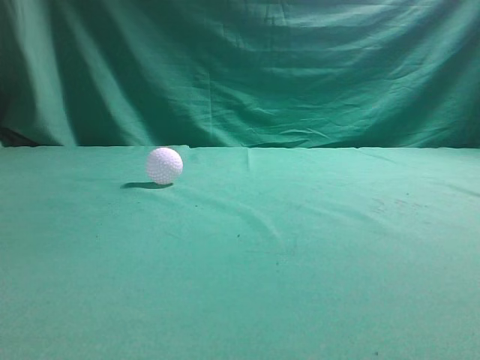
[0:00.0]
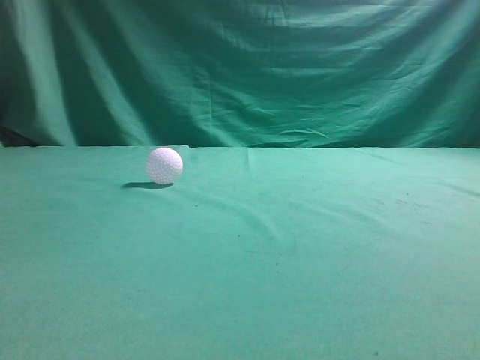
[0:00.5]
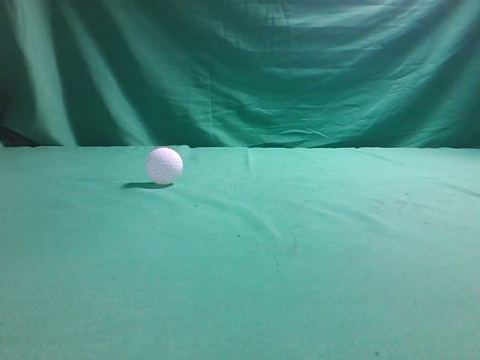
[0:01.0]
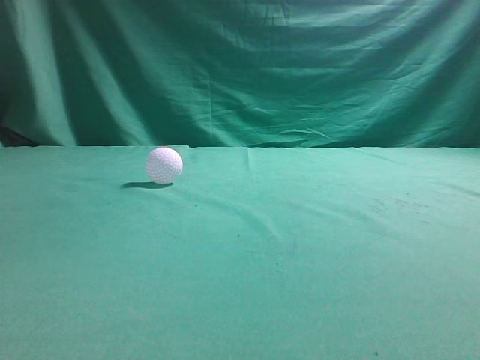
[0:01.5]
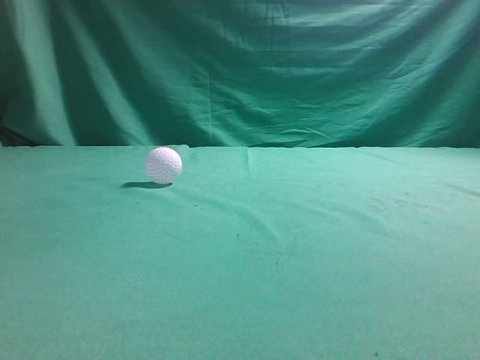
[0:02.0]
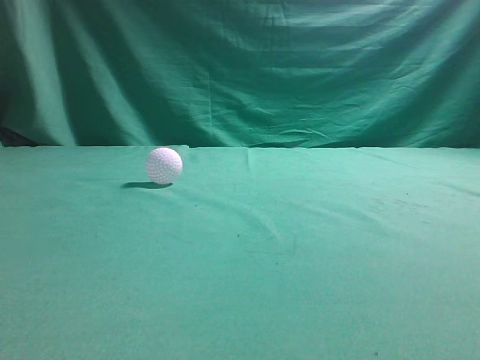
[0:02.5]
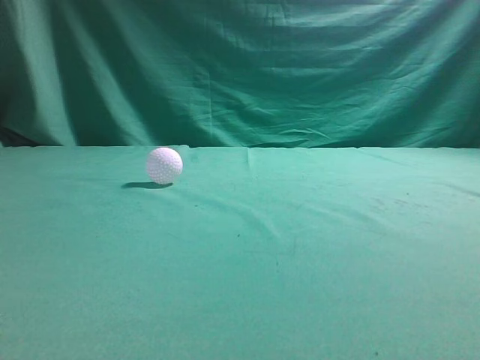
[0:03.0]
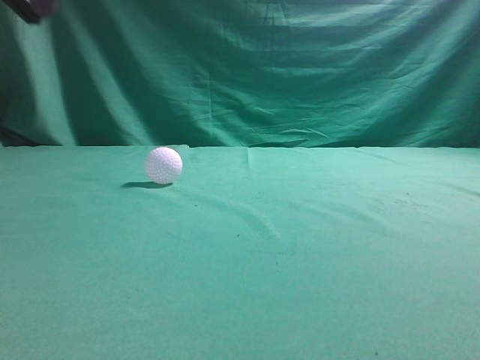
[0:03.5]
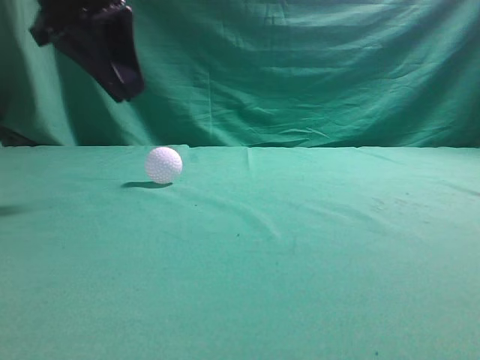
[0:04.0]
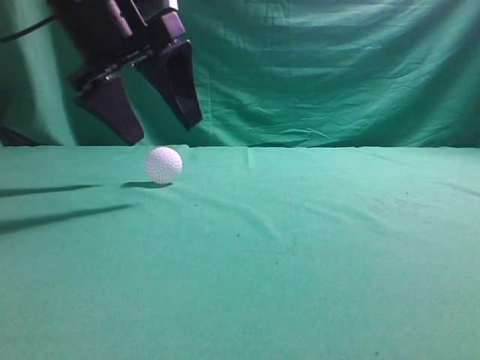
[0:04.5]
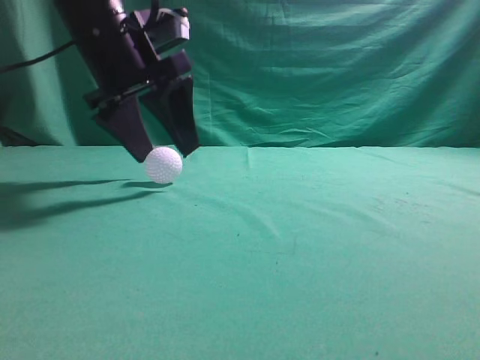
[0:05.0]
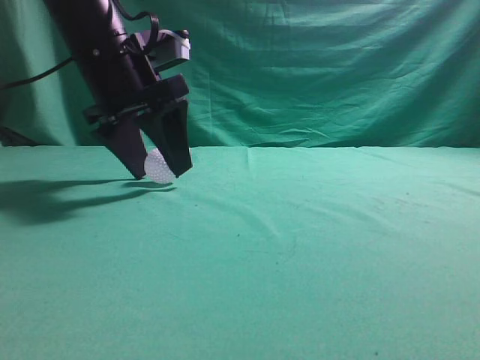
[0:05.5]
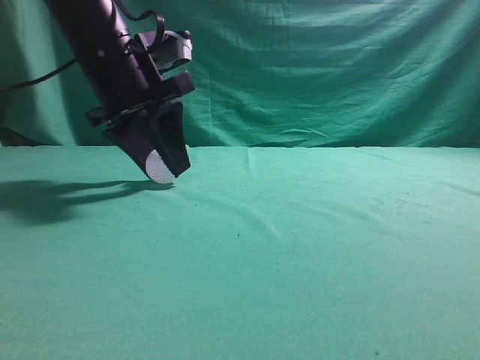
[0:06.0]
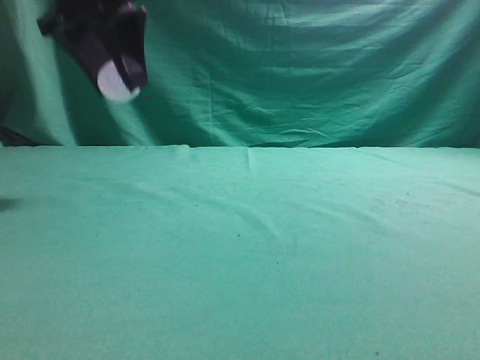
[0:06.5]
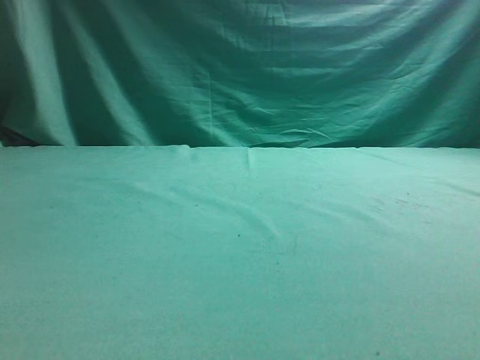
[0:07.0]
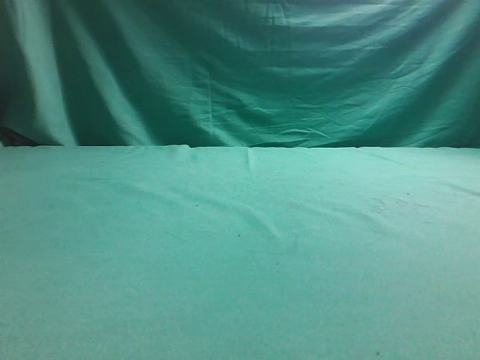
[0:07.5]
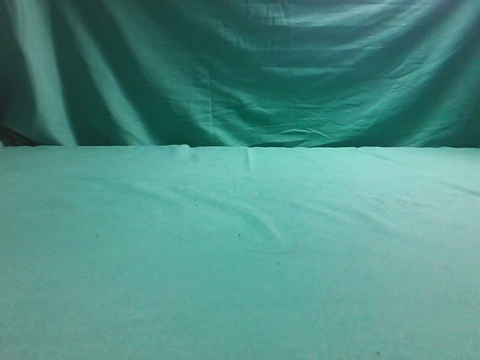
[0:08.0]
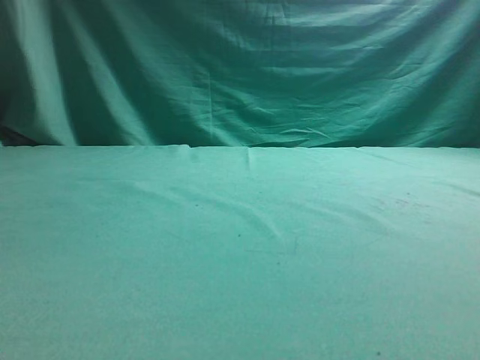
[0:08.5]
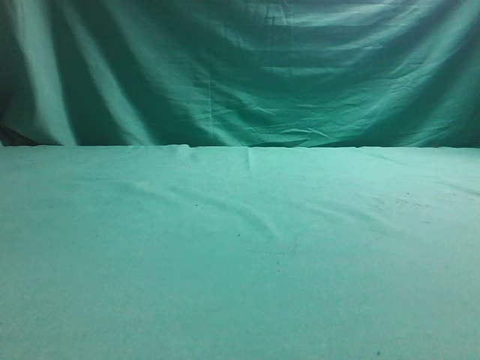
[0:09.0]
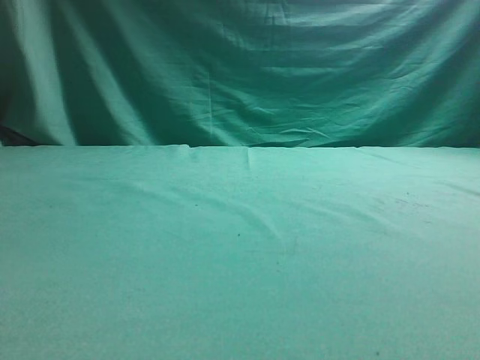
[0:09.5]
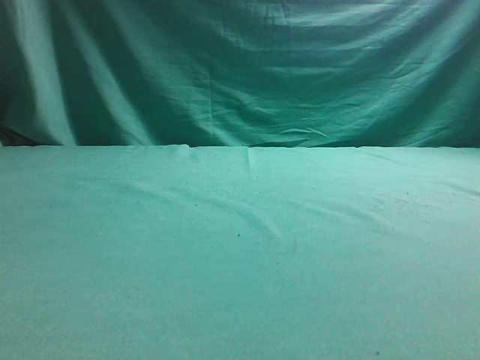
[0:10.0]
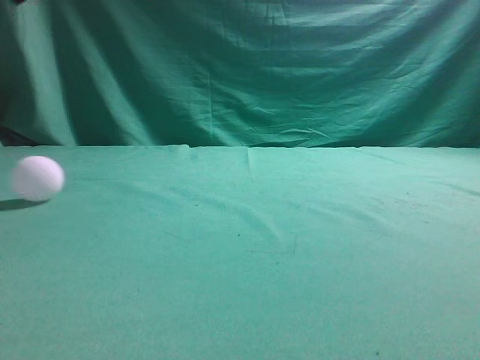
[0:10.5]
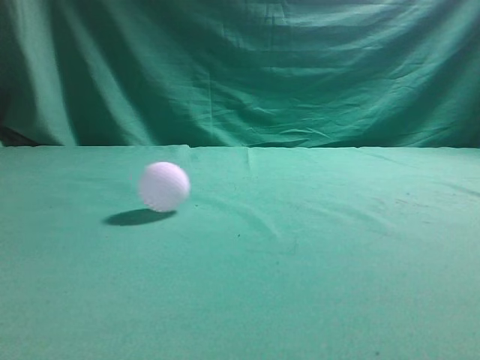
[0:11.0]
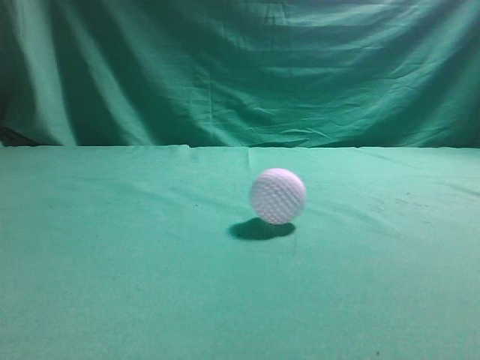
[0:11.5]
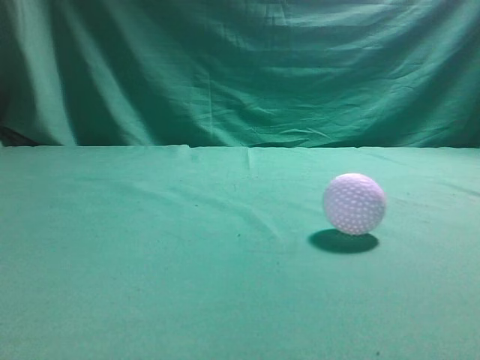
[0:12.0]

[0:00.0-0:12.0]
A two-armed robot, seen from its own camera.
Task of the whole recording: pick up the ball and place it on the plate, then pick up the ball from the plate and put it in the center of the table.
Step, 0:00.0 to 0:06.0: Grab the spherical object with your left arm.
Step, 0:06.5 to 0:10.0: Place the sphere on the white object.
0:02.0 to 0:04.0: The left gripper goes some 30 cm forward and to the right.
0:04.0 to 0:06.0: The left gripper heads downward and forward, covering some 10 cm, and opens.
0:06.0 to 0:08.0: The left gripper heads to the left, upward and backward, covering roughly 25 cm. Meanwhile the right gripper goes some 10 cm upward.

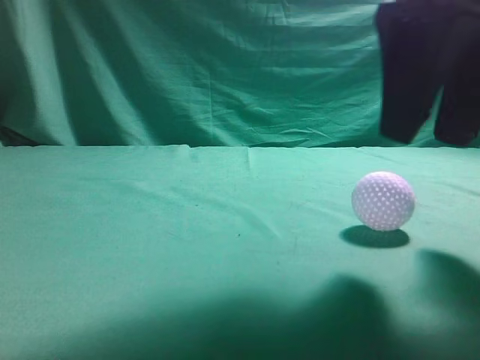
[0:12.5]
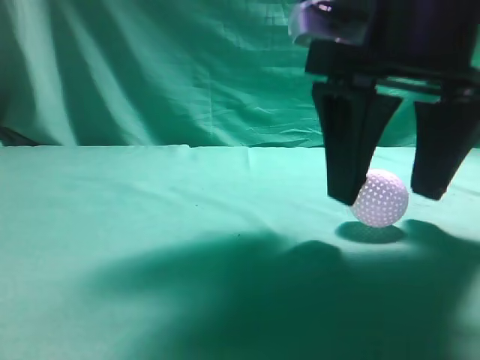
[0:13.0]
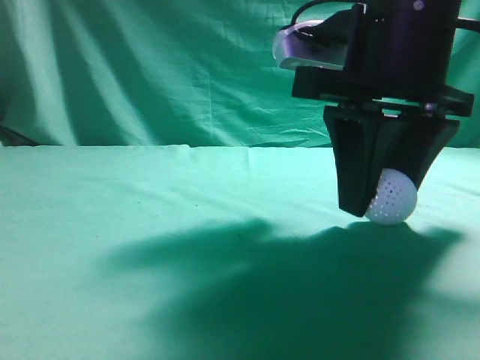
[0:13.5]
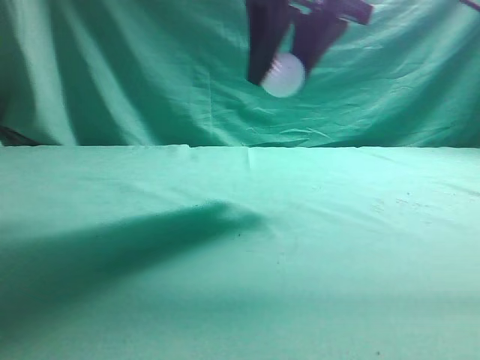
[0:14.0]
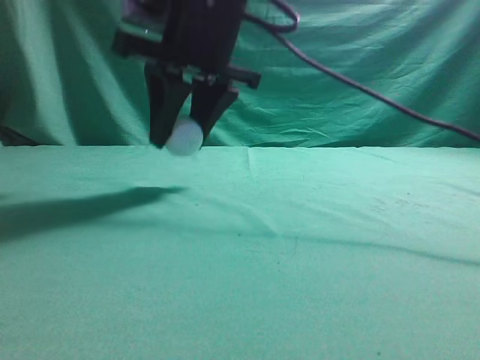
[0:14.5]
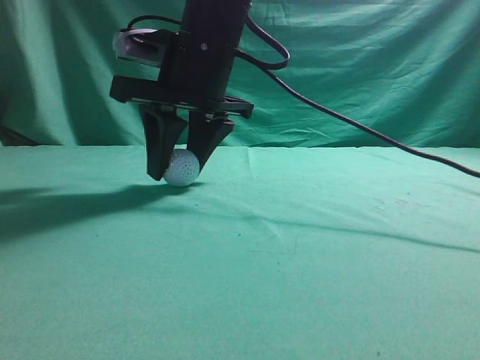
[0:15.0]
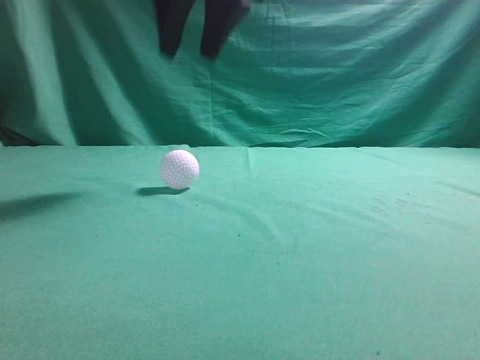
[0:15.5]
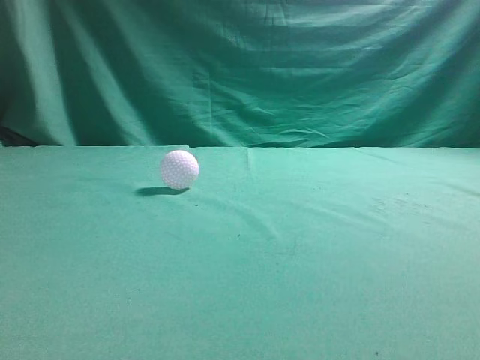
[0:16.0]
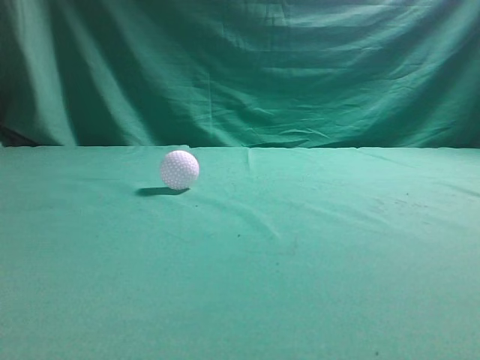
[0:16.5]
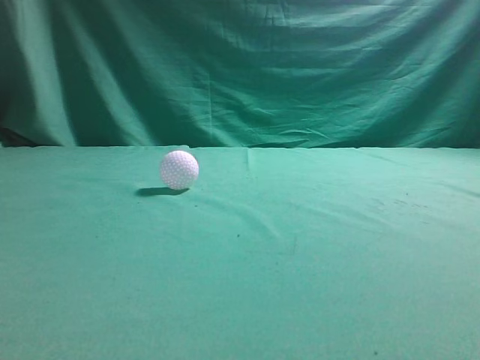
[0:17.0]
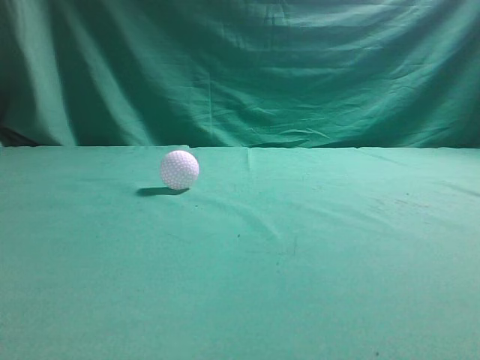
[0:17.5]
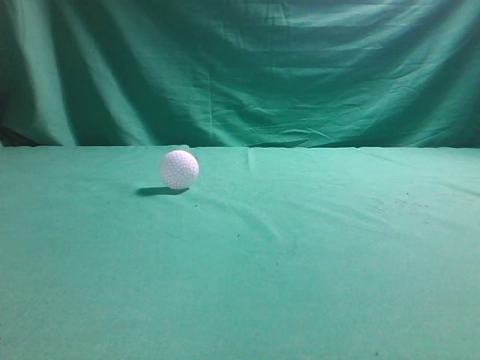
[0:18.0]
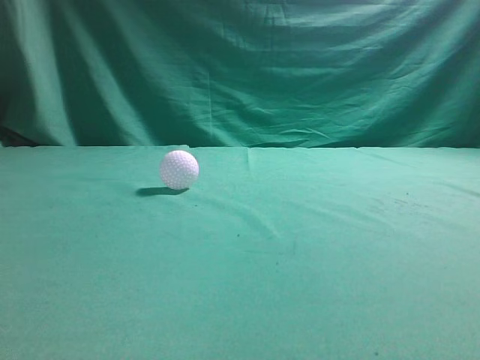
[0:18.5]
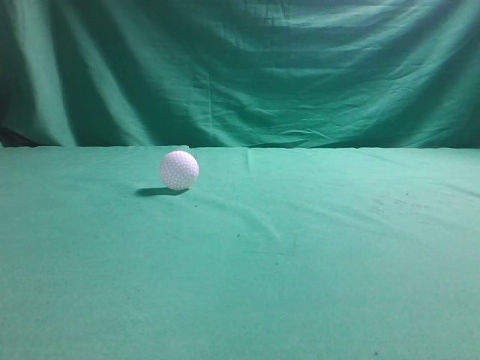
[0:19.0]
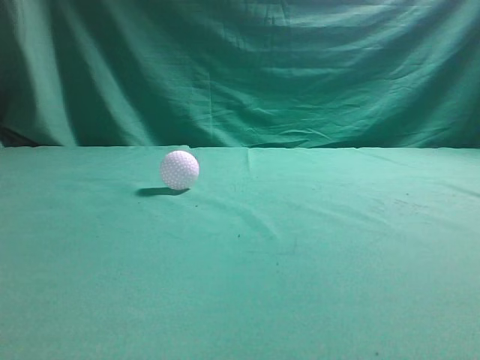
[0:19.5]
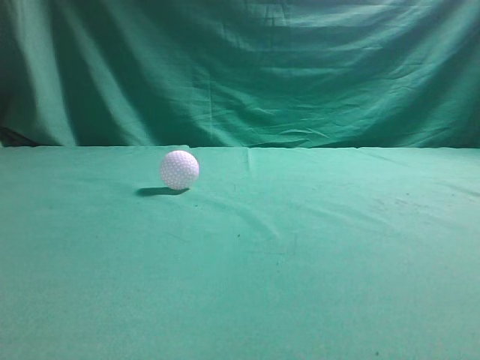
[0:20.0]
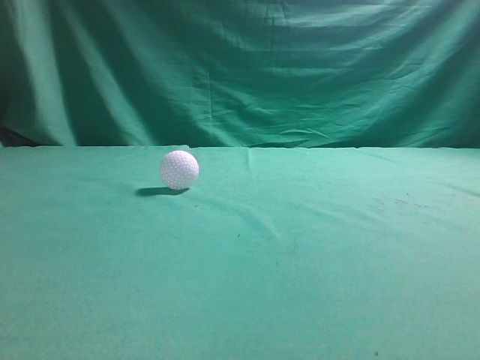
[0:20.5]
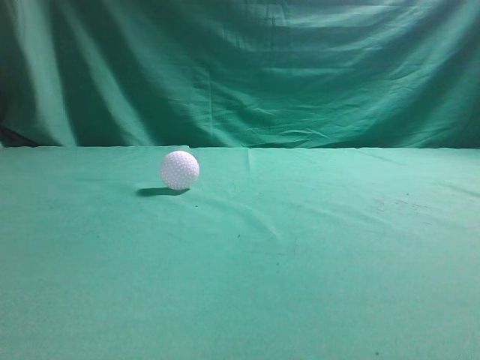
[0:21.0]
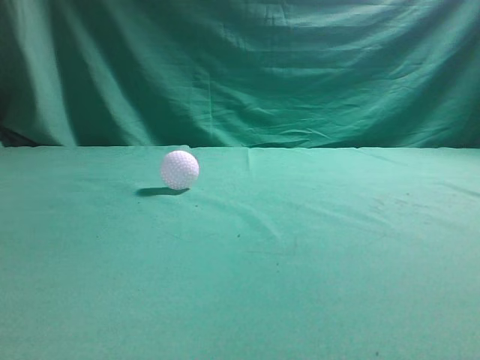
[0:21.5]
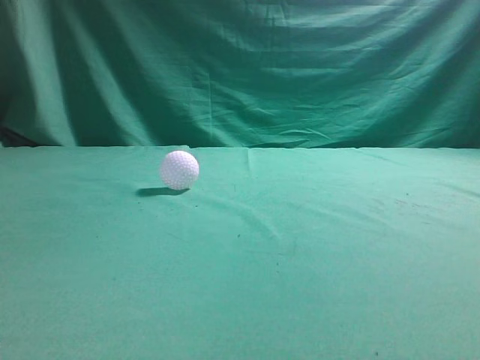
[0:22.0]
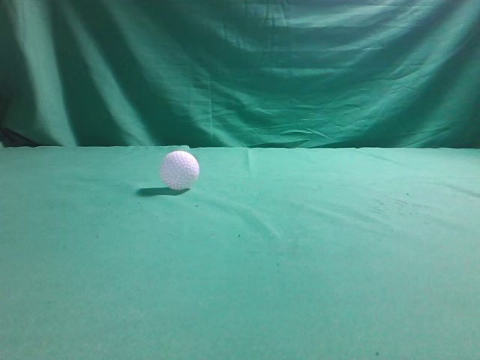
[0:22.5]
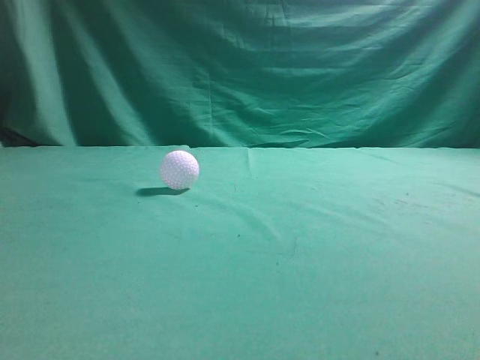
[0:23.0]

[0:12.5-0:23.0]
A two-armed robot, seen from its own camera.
Task of the whole recording: pick up the ball and place it on the plate, then pick up the ball from the plate and put it in the center of the table.
Step, 0:14.0 to 0:15.0: Put the picked-up object on the table.
0:12.5 to 0:14.5: The right gripper shifts about 20 cm to the left and forward.
0:14.5 to 0:16.5: The right gripper moves upward, backward and to the right, roughly 40 cm, and closes its fingers.
